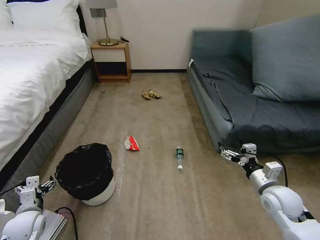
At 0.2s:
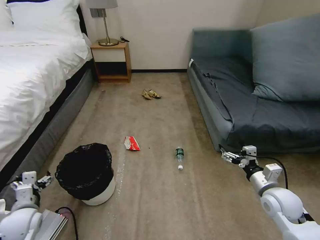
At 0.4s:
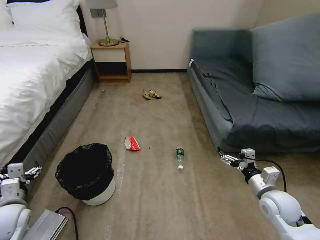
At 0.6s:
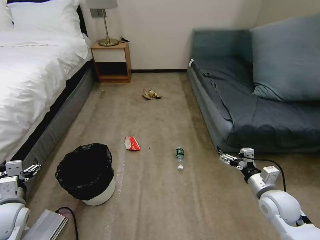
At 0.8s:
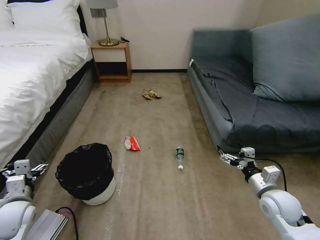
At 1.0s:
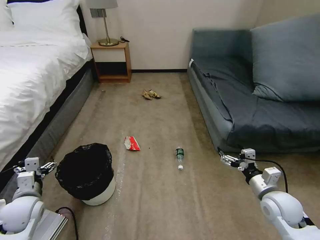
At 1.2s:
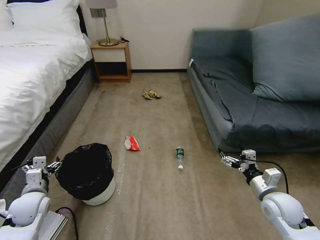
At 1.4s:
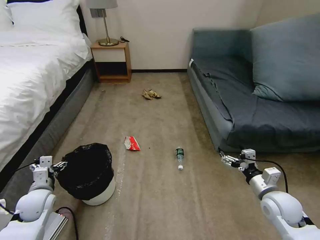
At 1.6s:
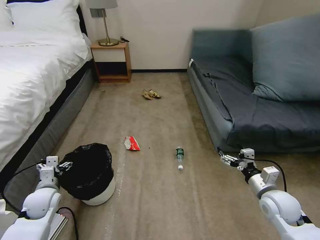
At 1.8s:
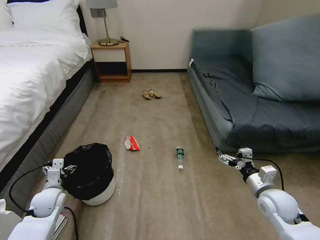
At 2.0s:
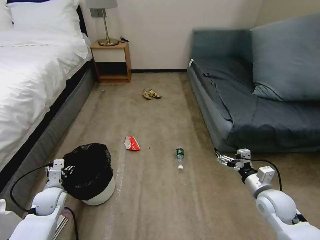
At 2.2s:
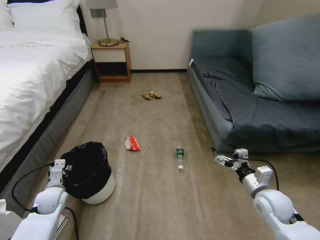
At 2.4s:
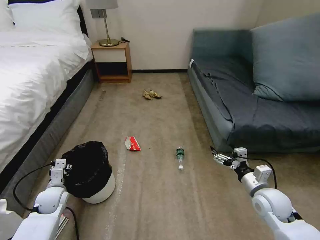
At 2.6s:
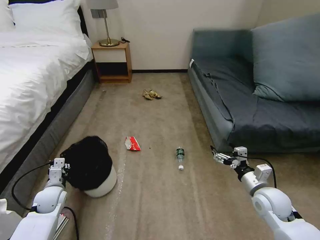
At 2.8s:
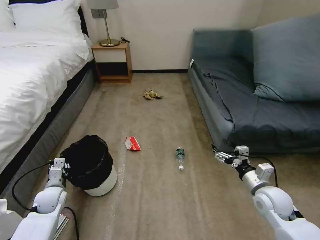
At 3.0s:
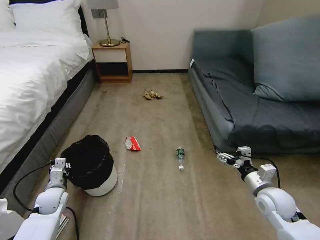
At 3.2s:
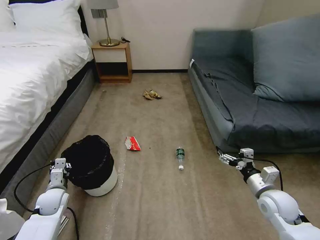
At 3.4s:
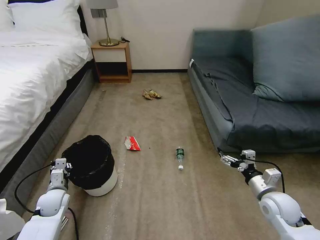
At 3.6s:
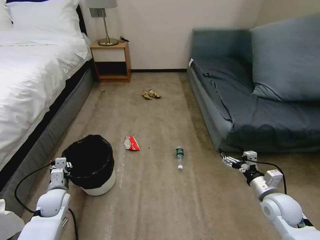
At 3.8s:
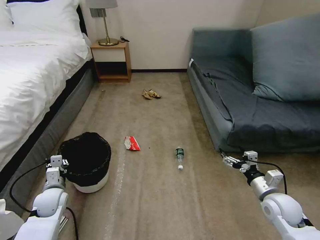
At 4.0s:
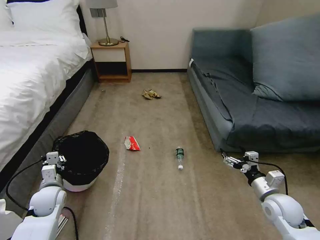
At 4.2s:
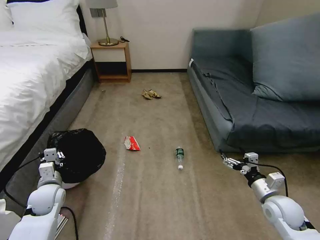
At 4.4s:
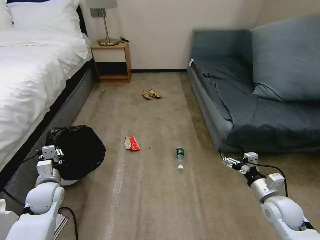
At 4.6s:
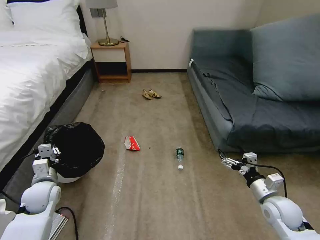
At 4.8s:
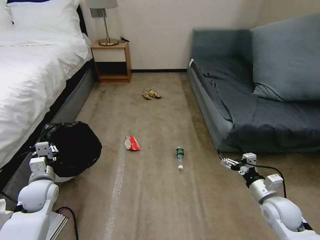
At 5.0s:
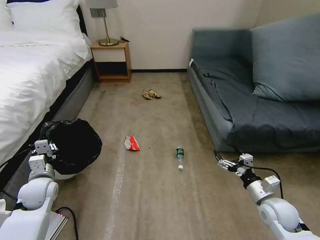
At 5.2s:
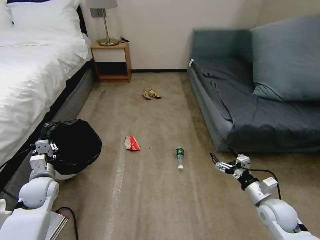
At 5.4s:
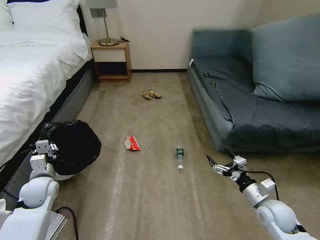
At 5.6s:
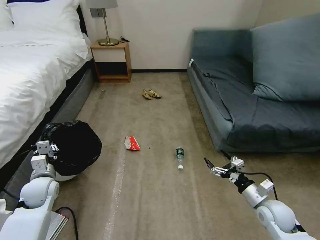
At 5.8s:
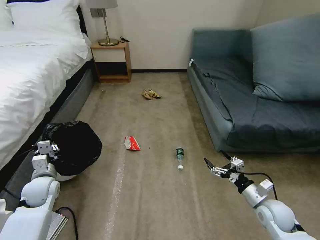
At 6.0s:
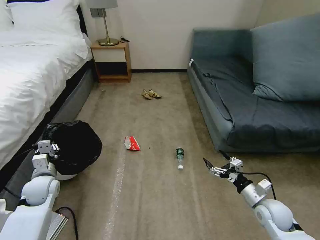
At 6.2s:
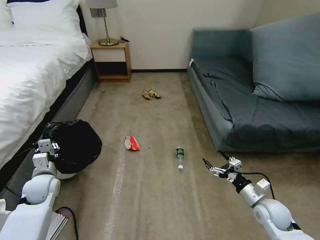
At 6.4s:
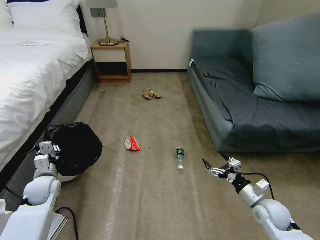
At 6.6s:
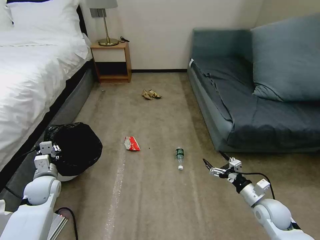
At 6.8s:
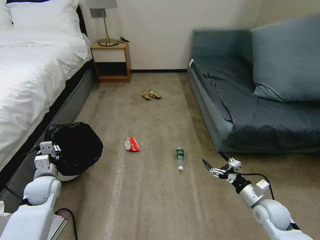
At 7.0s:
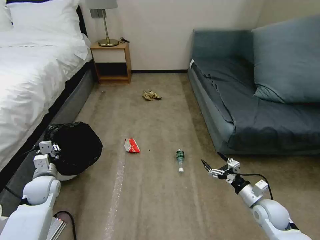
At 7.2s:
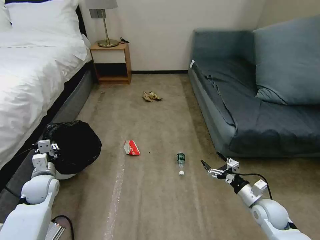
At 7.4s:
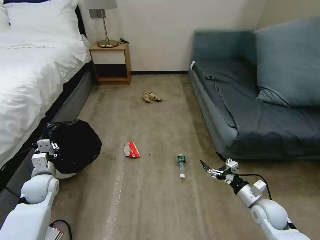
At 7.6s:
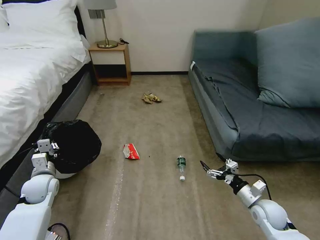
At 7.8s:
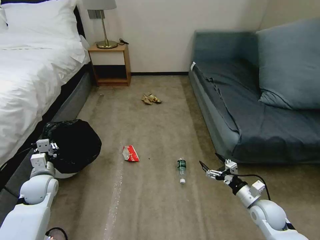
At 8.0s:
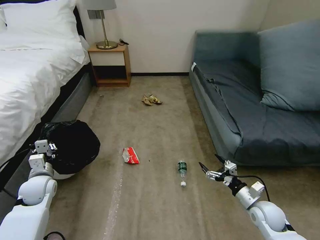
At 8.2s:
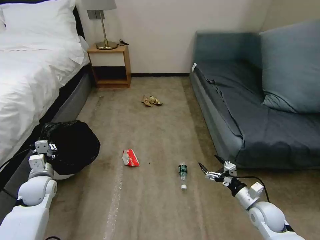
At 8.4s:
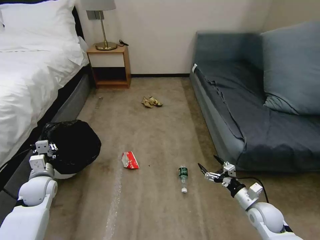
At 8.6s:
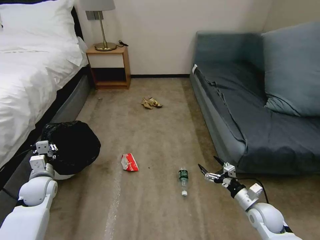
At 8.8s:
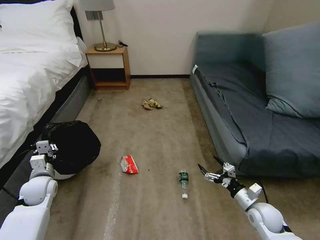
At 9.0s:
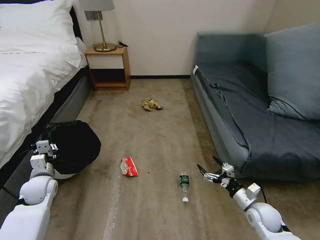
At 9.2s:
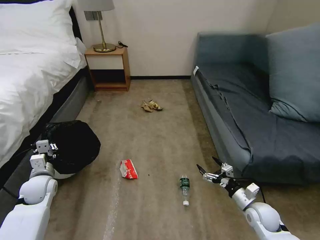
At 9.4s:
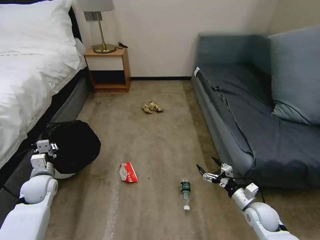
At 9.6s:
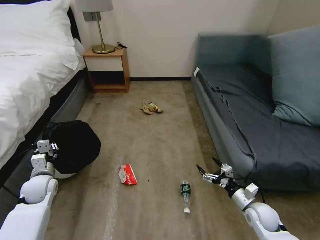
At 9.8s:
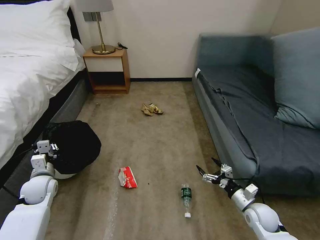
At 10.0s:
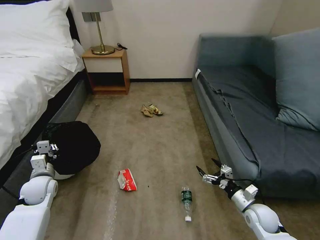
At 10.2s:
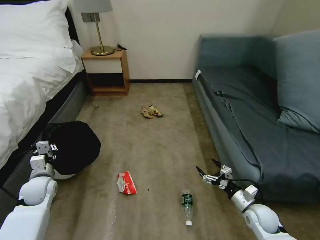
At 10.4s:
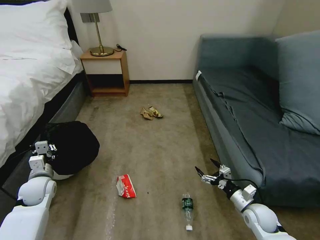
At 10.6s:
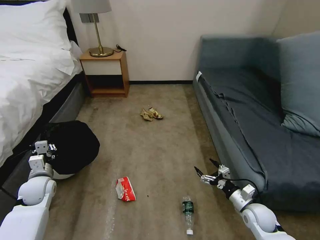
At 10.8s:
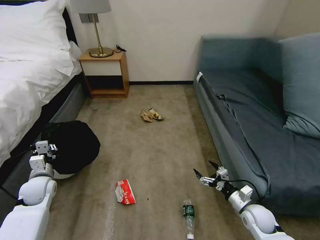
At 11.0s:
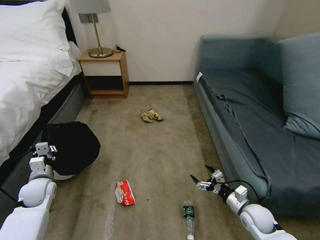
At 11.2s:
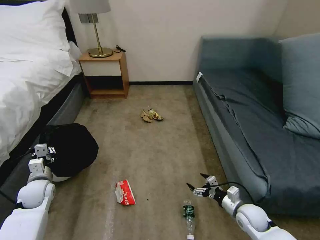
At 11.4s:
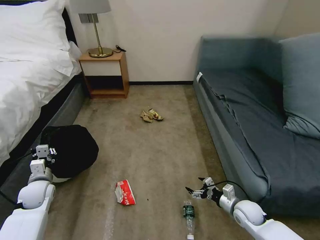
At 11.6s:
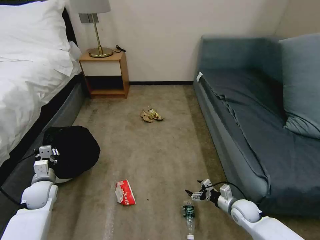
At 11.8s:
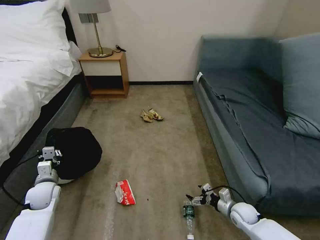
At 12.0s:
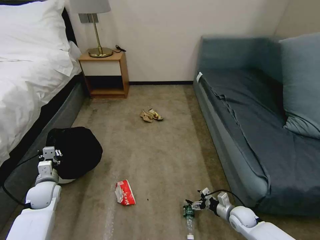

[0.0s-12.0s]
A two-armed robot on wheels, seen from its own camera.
Task of the whole recording: Pick up the trash bin, then pick up the garbage on the floor and place it into the trash bin.
0.0s to 1.6s: The left gripper moves forward, some 5 cm.
1.6s to 3.0s: The left gripper travels downward by roughly 5 cm, and closes its fingers.
3.0s to 4.4s: The left gripper heads upward, covering about 5 cm.
4.4s to 7.6s: There are only small adjustments of the grippers.
10.4s to 12.0s: The right gripper heads downward, covering approximately 10 cm.

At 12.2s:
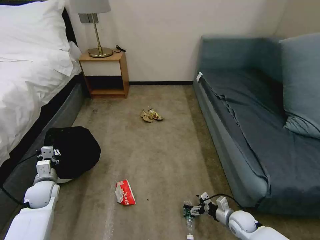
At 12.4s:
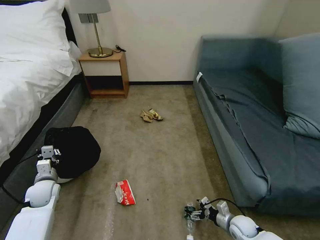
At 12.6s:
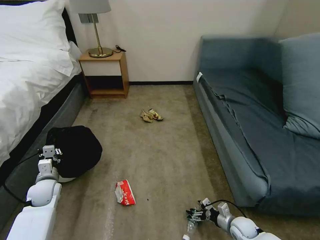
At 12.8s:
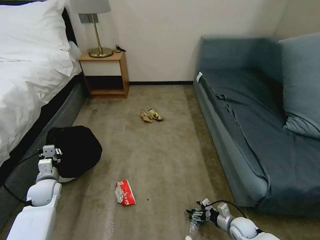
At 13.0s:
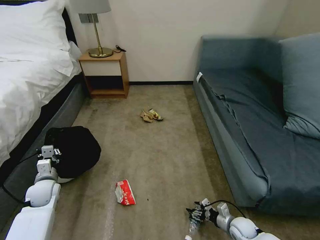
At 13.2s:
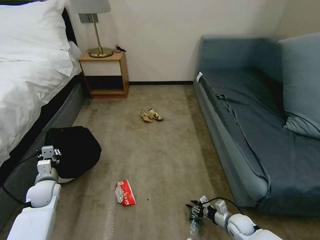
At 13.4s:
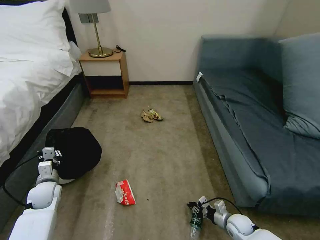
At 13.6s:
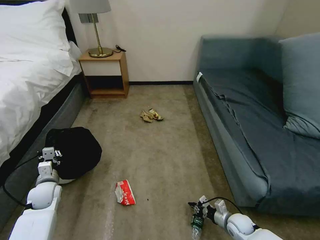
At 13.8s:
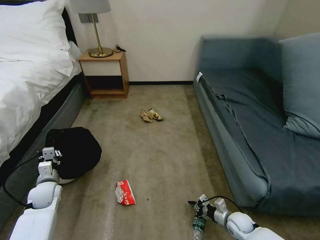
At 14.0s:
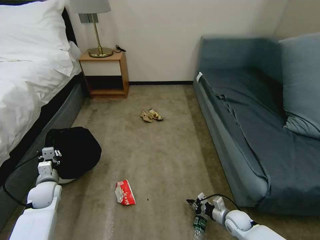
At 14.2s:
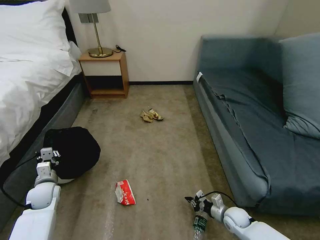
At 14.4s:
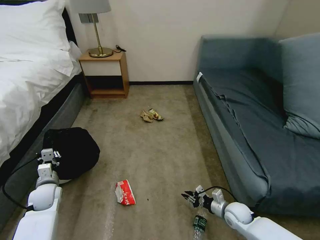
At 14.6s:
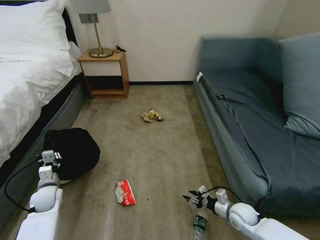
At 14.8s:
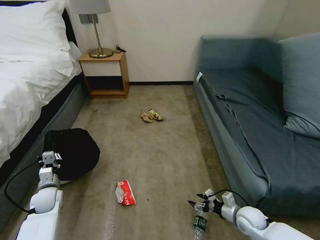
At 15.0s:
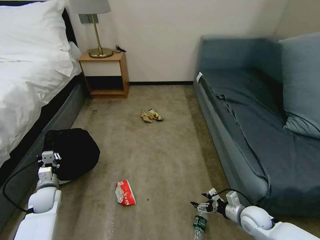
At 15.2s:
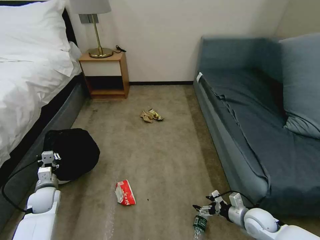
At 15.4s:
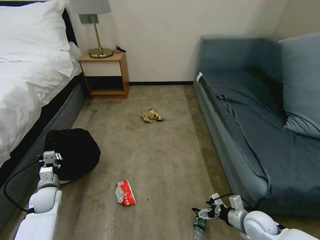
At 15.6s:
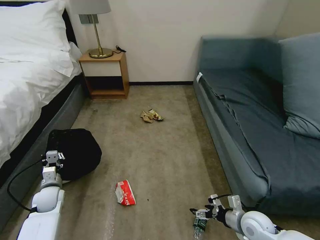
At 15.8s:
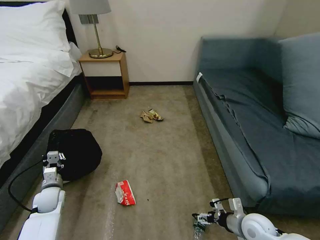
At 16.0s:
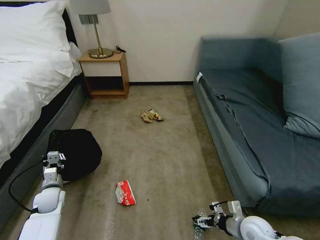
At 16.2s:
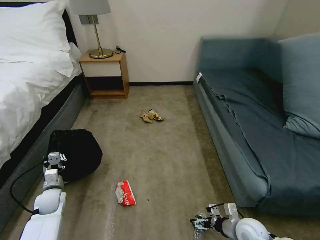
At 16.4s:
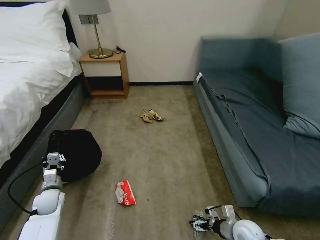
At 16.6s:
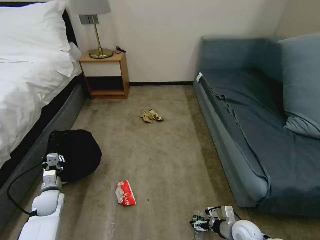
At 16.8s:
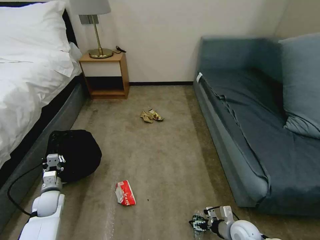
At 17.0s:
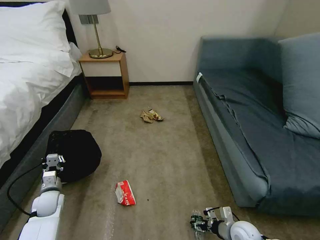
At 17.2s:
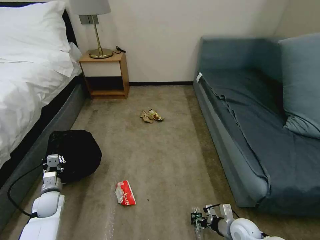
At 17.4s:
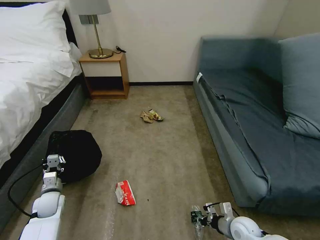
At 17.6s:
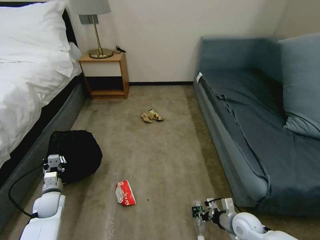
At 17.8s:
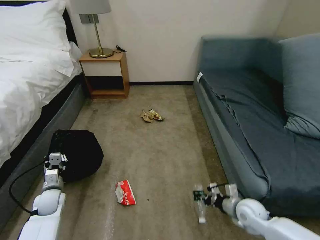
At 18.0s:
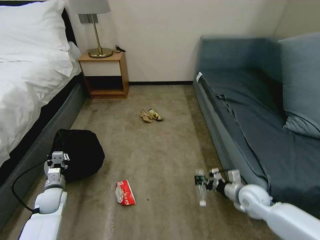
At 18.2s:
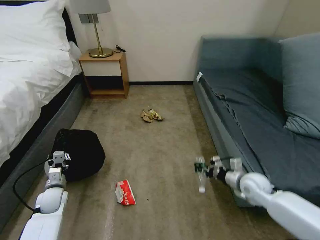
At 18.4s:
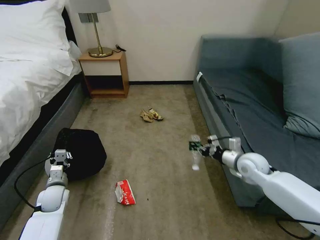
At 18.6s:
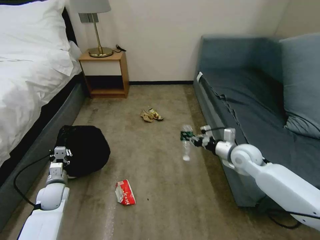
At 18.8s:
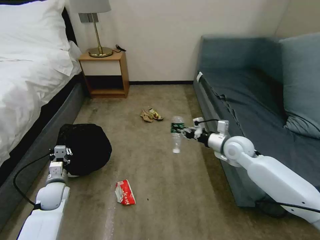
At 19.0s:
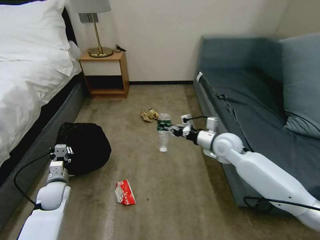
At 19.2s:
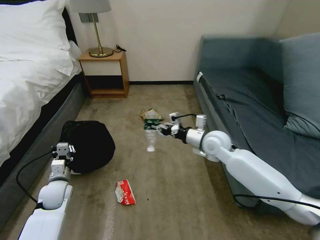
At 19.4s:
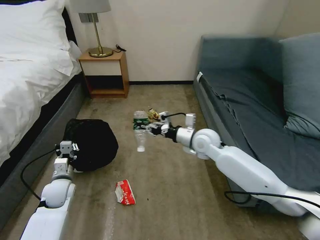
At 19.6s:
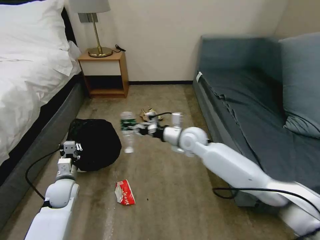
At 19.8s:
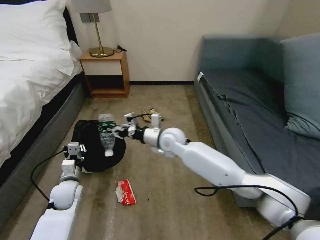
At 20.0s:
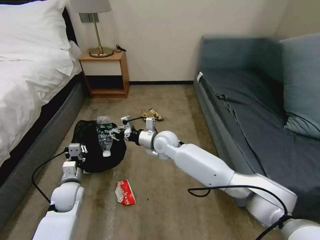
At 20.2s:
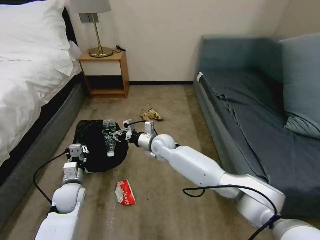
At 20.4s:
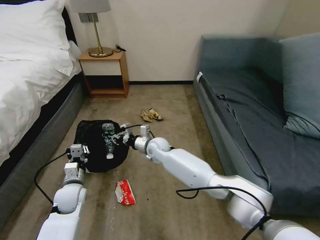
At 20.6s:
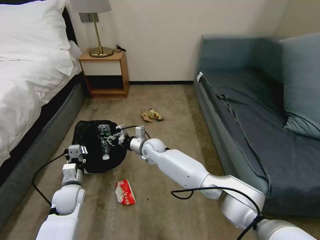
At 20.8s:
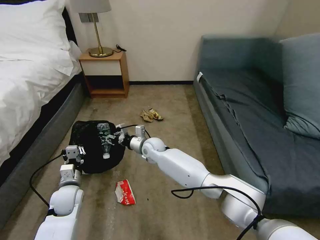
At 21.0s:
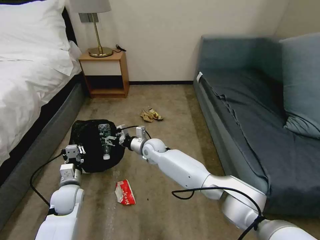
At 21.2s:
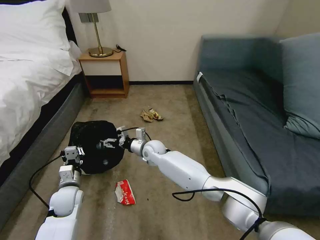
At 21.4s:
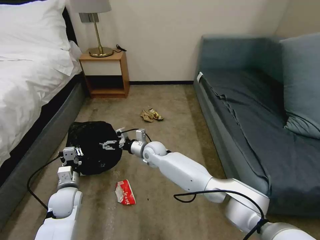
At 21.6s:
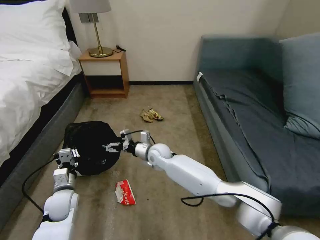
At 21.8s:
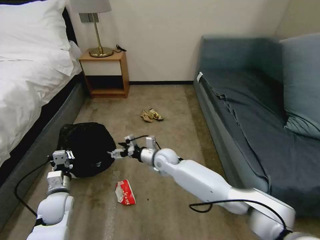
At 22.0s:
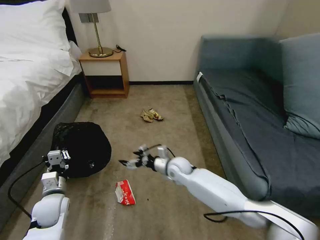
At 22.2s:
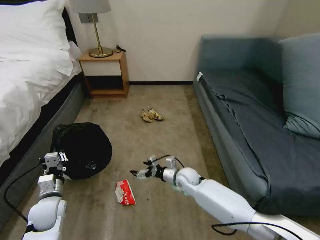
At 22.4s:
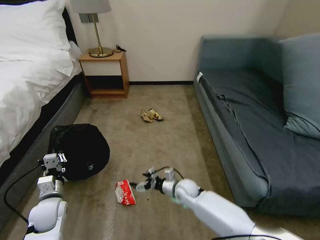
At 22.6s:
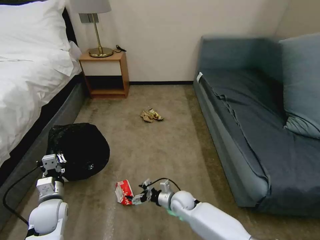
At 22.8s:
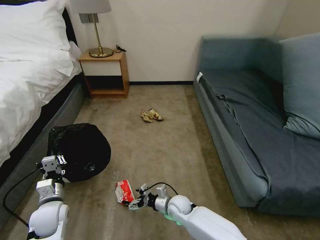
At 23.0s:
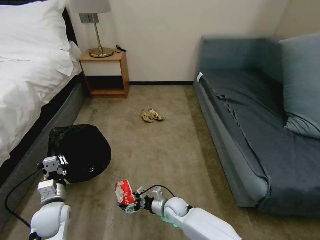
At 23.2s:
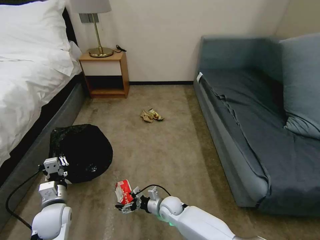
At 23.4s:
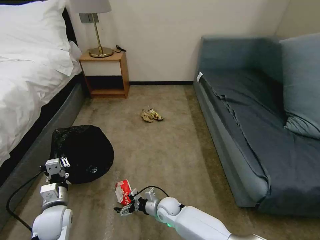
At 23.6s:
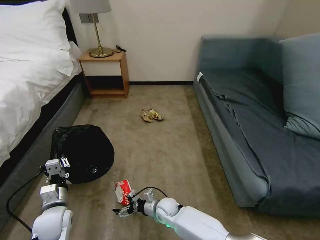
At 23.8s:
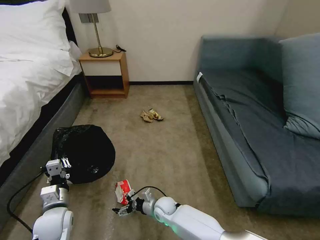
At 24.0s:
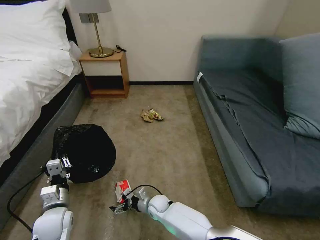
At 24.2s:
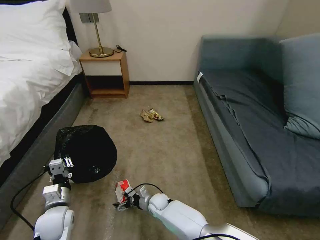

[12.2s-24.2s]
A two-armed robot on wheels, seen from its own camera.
Task of the whole recording: Pick up the trash bin, then pick up the garbage on the floor and place it into the trash bin.
12.2s to 13.8s: The right gripper closes up.
13.8s to 15.2s: The right gripper travels upward by some 10 cm, and opens up.
15.2s to 16.6s: The right gripper changes place by about 5 cm.
16.6s to 18.2s: The right gripper moves forward and upward, some 20 cm, and closes.
18.2s to 19.8s: The right gripper is displaced to the left and forward by about 35 cm, while the left gripper shifts approximately 5 cm to the right.
19.8s to 21.2s: The right gripper is displaced downward and to the left by about 15 cm, and opens.
21.2s to 22.6s: The left gripper moves about 5 cm, while the right gripper heads backward, downward and to the right, covering some 25 cm.
22.6s to 24.2s: The right gripper moves to the left and downward, roughly 10 cm.
